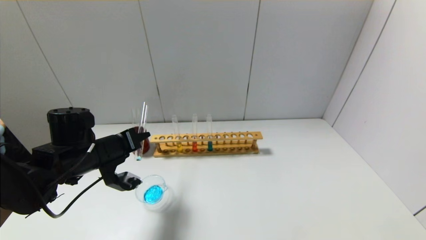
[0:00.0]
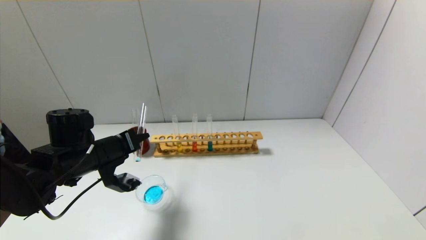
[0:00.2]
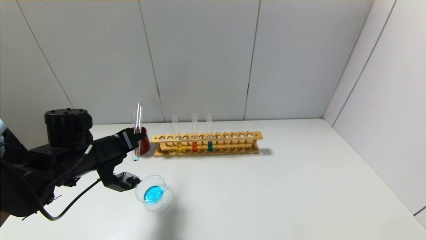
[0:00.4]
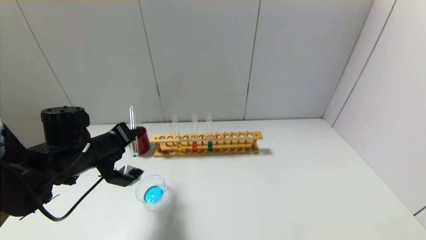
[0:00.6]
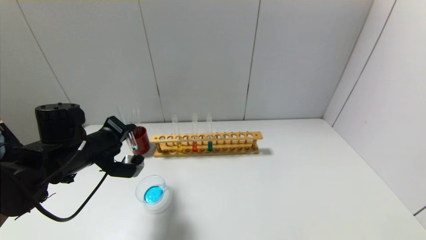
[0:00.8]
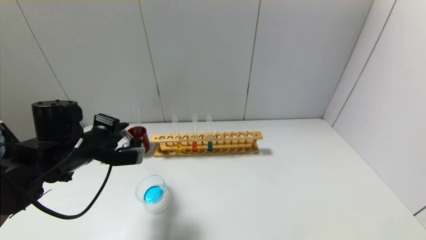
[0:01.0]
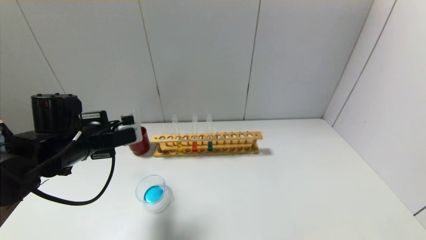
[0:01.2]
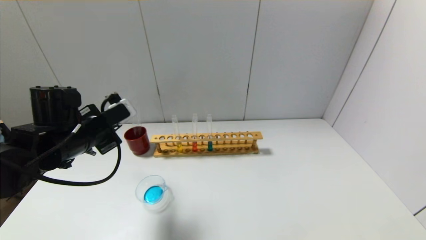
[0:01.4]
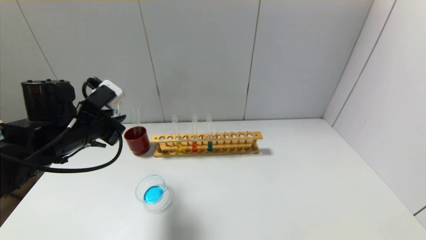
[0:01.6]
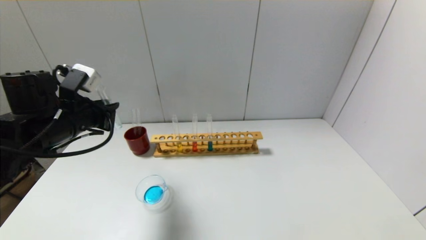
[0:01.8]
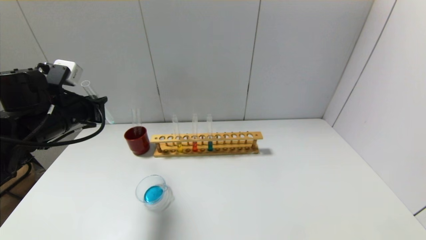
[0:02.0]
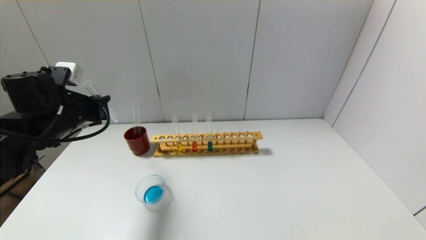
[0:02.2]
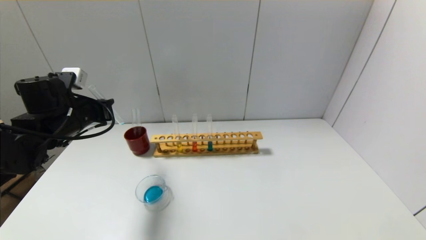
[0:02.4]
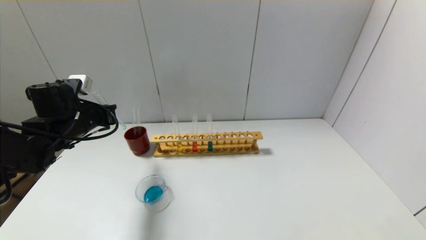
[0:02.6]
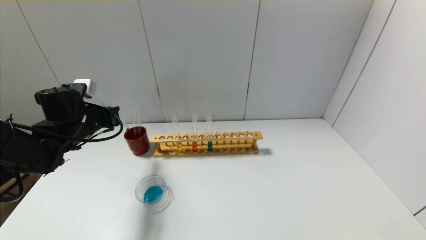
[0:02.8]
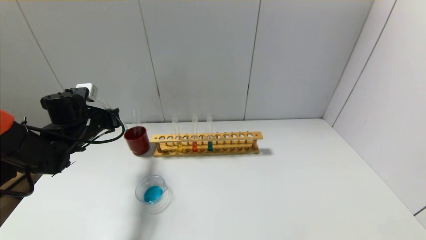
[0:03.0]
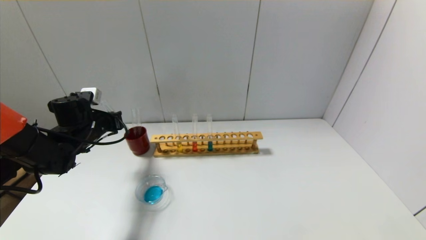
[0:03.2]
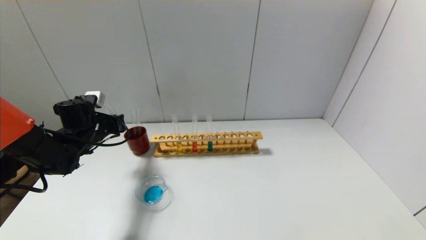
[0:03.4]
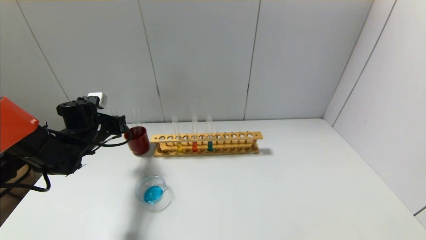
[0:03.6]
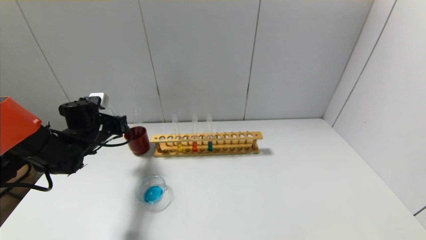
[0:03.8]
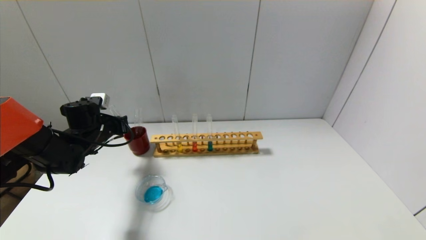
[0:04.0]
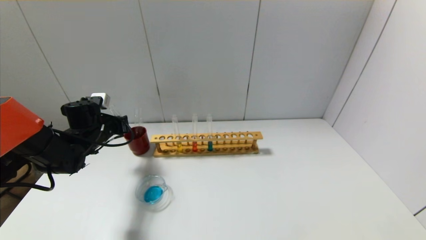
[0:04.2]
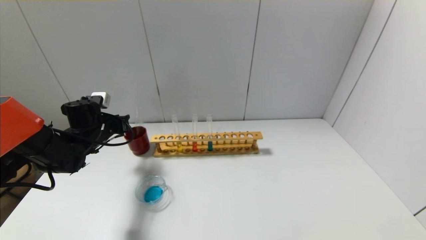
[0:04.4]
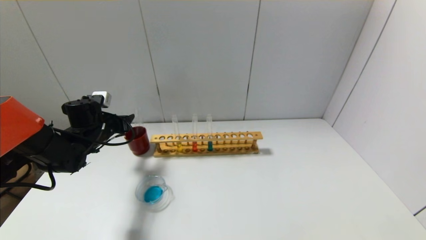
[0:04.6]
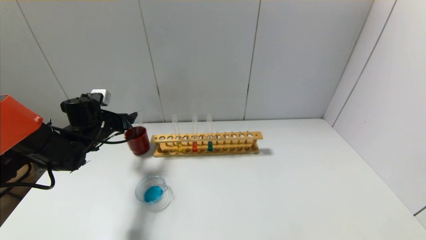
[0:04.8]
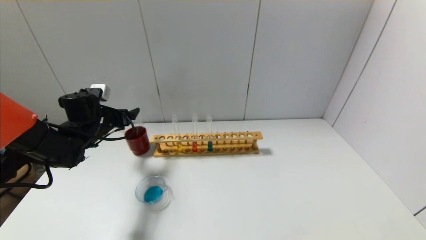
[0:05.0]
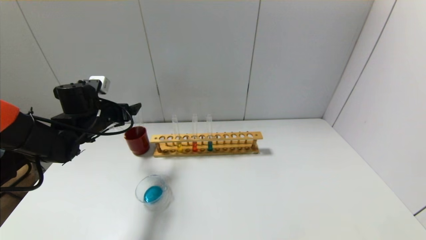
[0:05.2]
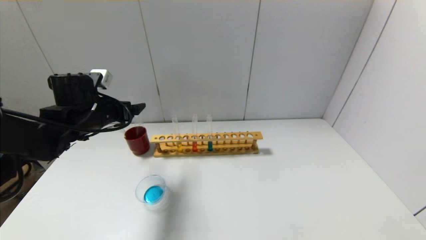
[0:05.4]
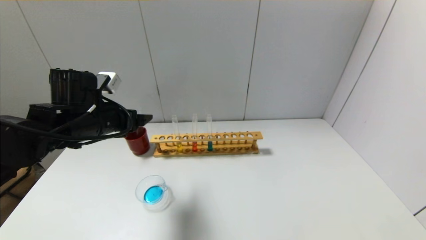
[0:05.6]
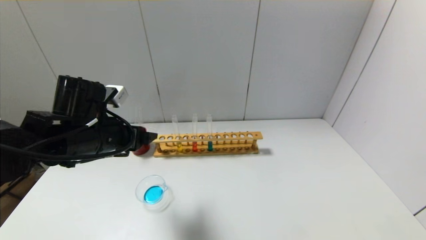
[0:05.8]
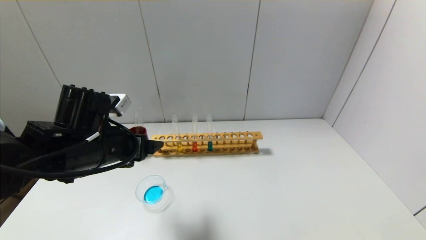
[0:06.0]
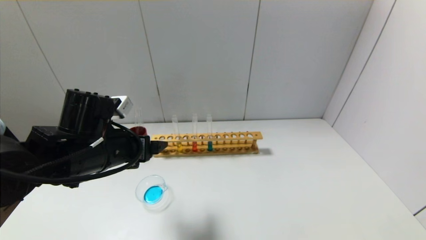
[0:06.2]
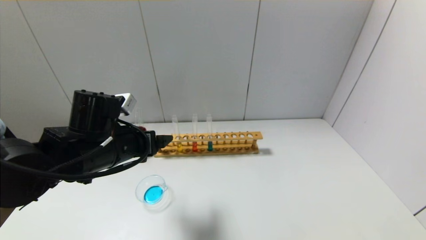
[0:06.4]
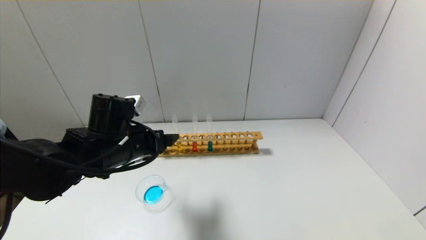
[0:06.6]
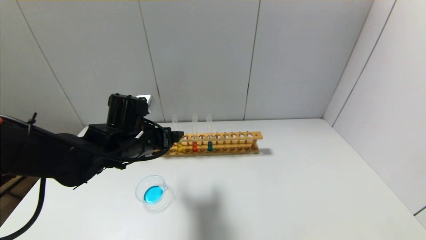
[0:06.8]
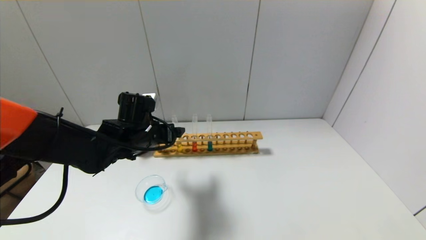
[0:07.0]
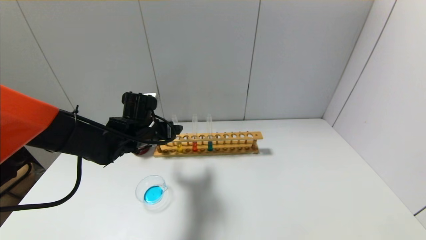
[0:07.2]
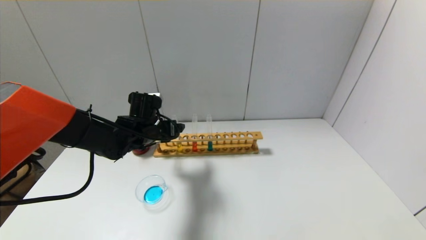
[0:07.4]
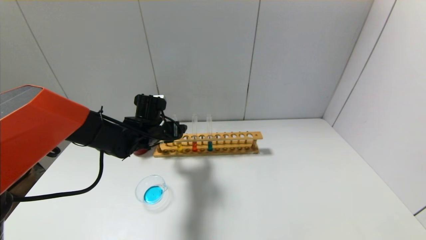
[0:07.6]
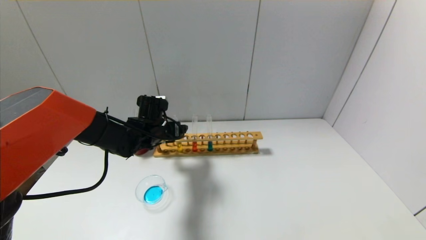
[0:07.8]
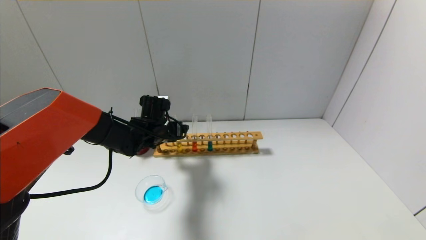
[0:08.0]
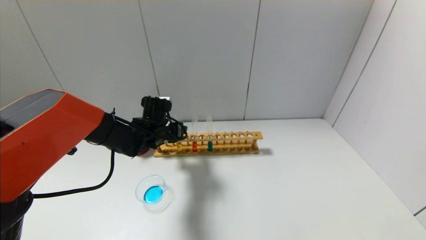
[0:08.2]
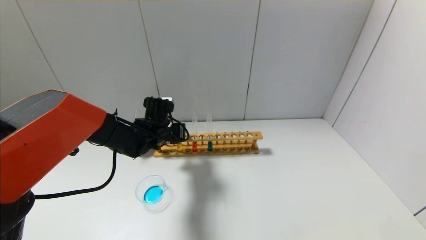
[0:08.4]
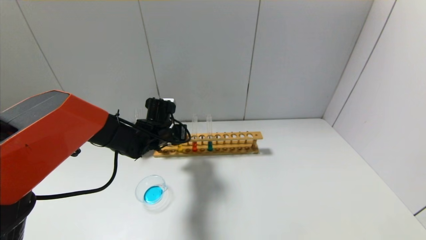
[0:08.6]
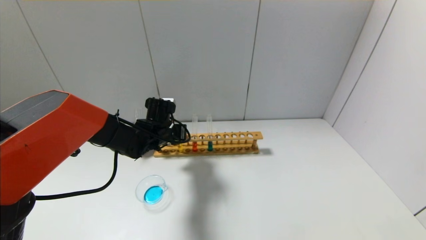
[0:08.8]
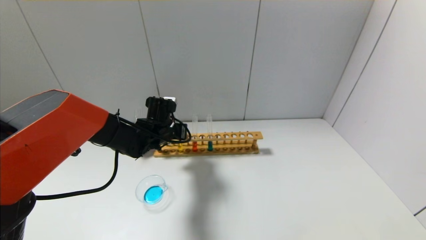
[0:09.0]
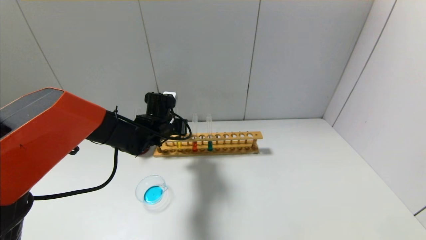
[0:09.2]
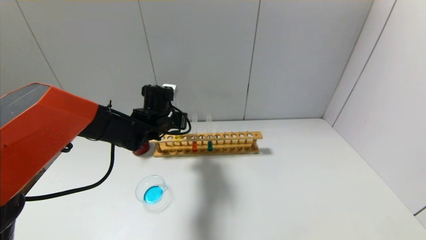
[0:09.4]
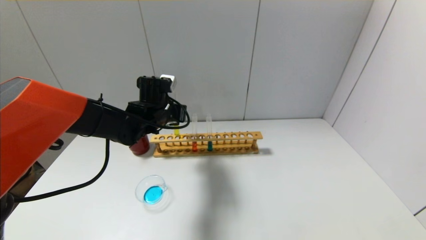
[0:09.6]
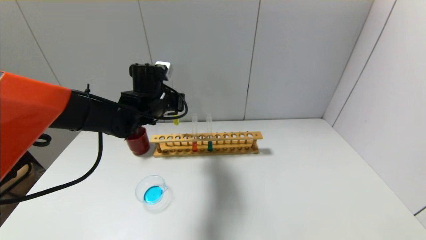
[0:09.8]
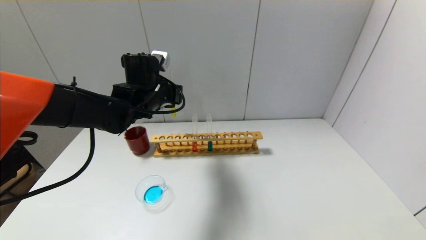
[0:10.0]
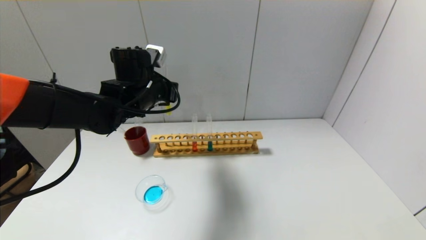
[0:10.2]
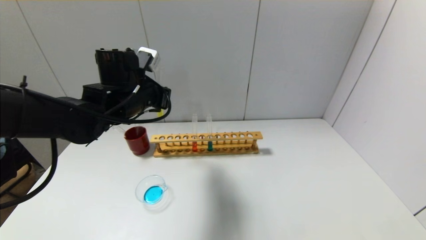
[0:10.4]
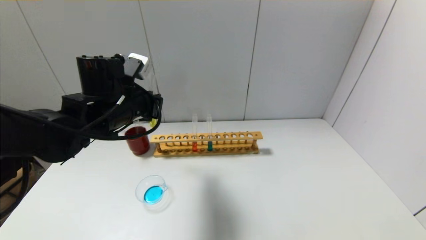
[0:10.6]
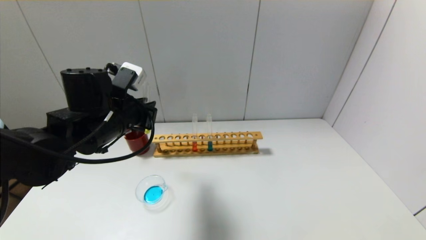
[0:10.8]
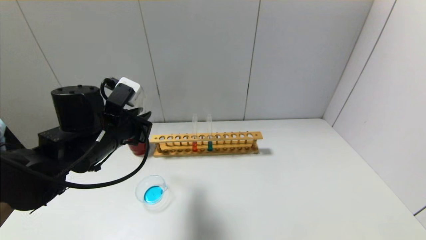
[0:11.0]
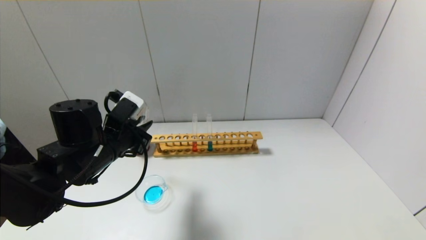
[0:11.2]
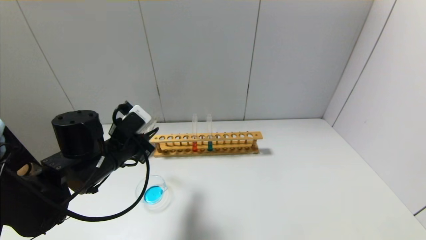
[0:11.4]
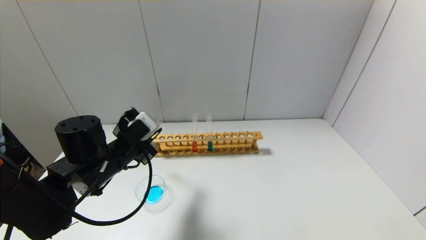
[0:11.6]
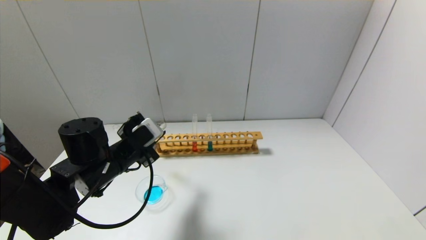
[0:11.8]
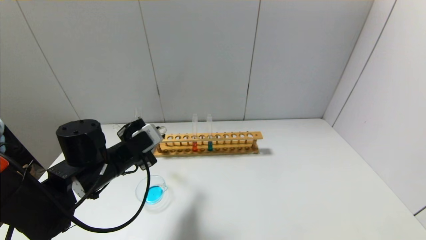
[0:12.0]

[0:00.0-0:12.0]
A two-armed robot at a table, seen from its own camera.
Step, 0:01.0 to 0:04.4: Place the test tube into the brown cup with the left gripper.
Step, 0:04.6 to 0:08.6: Grasp the yellow reagent with the left gripper.
0:00.0 to 0:01.6: The left gripper heads upward, covering about 5 cm.
0:01.6 to 0:03.0: The left gripper heads forward, downward and to the left, covering roughly 10 cm.
0:03.0 to 0:04.4: The grippers stay close to where they were, moving slightly.
0:04.4 to 0:06.0: The left gripper shifts some 20 cm backward, to the right and upward, and opens up.
0:06.0 to 0:07.6: The left gripper goes roughly 15 cm forward and downward.
0:07.6 to 0:09.0: The left gripper closes.
0:09.0 to 0:10.4: The left gripper is displaced upward and backward by roughly 15 cm.
0:10.4 to 0:12.0: The left gripper is displaced downward and backward by approximately 15 cm.

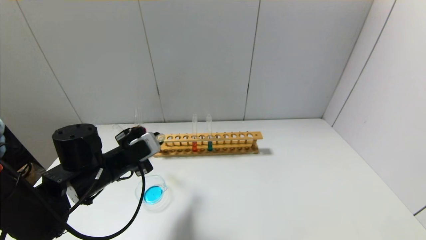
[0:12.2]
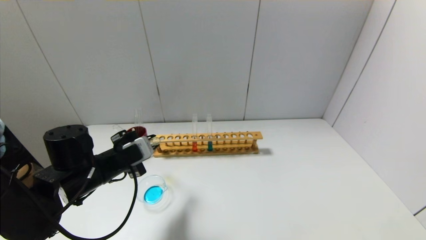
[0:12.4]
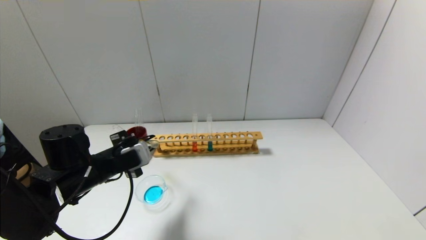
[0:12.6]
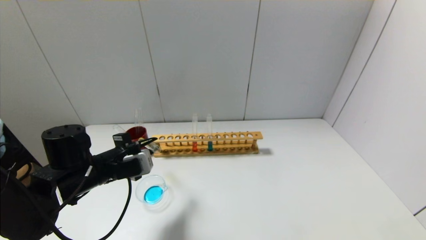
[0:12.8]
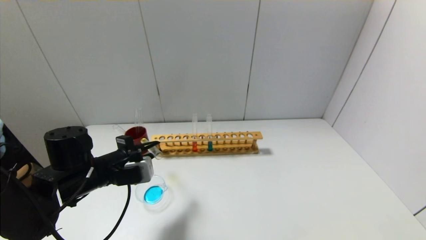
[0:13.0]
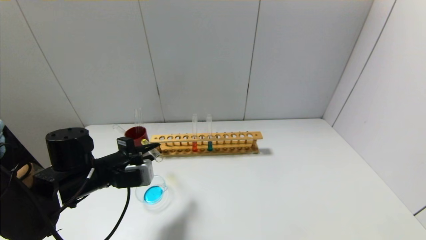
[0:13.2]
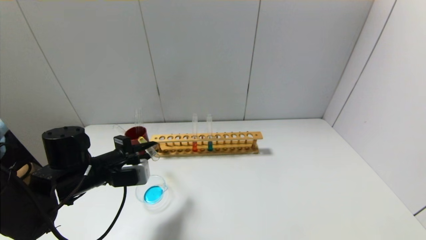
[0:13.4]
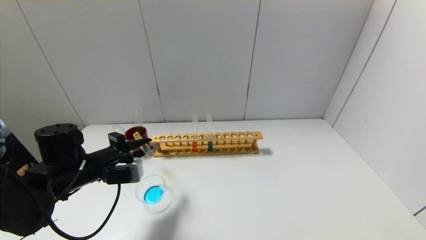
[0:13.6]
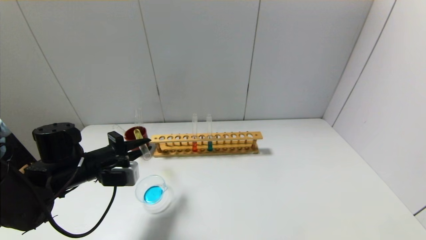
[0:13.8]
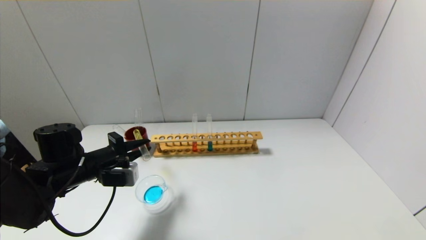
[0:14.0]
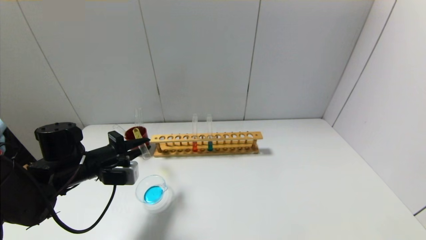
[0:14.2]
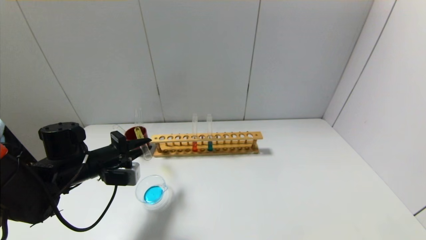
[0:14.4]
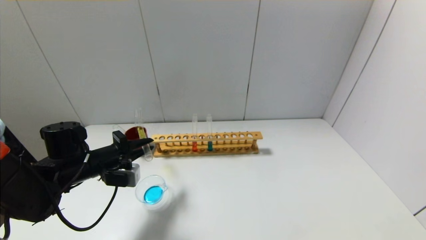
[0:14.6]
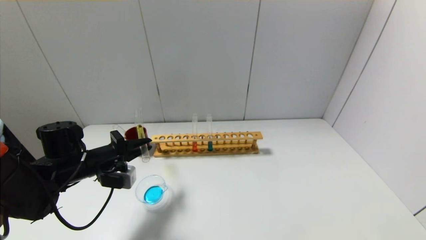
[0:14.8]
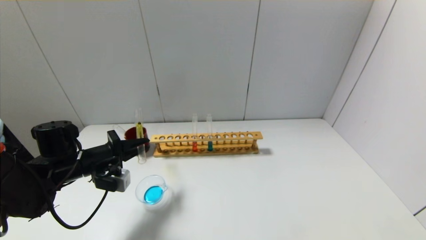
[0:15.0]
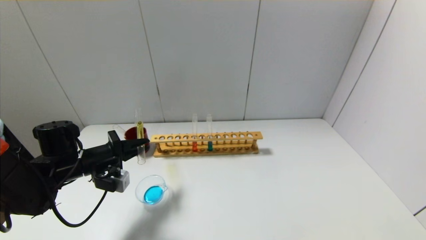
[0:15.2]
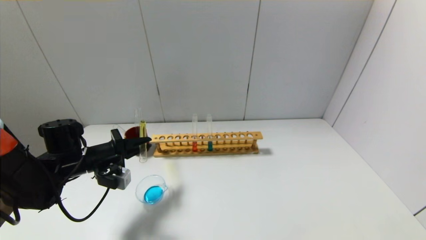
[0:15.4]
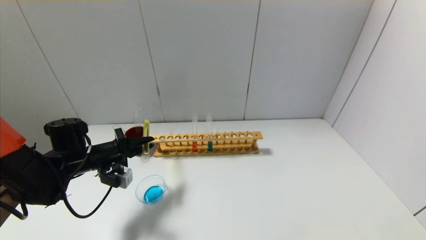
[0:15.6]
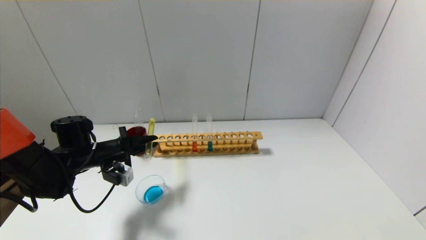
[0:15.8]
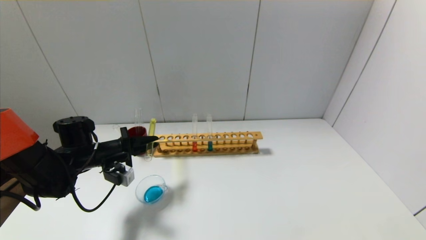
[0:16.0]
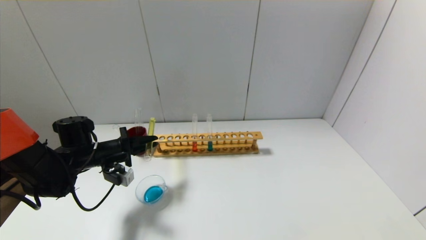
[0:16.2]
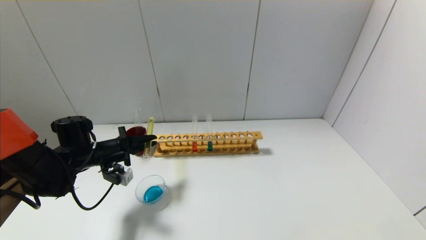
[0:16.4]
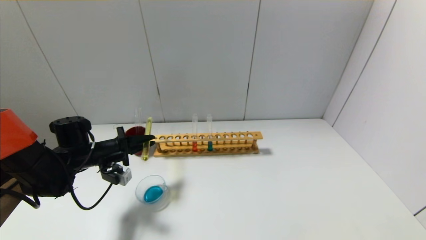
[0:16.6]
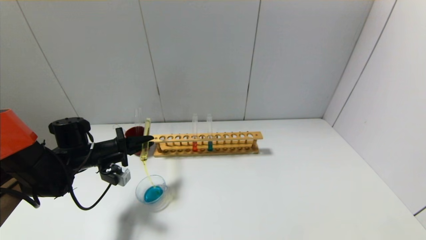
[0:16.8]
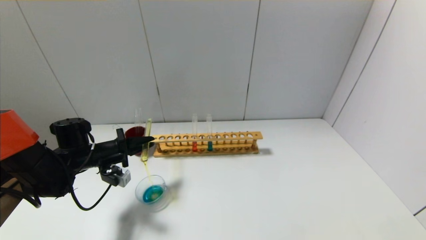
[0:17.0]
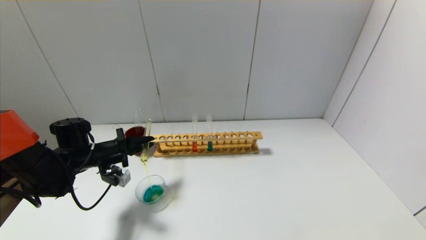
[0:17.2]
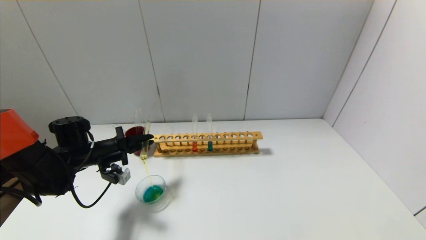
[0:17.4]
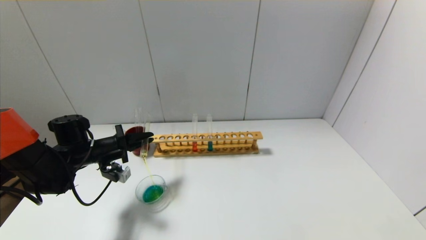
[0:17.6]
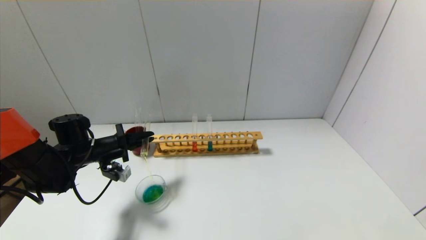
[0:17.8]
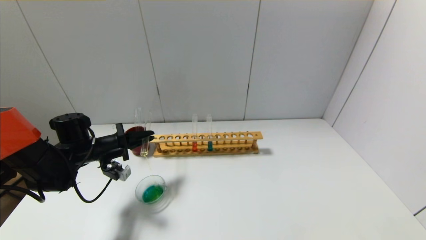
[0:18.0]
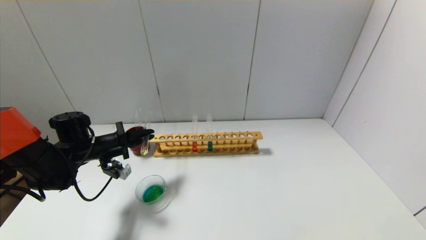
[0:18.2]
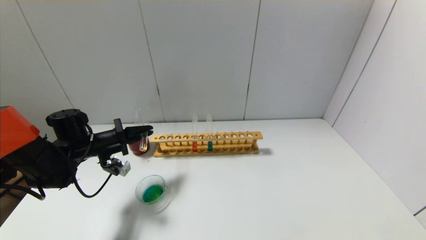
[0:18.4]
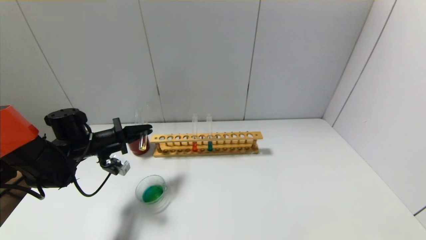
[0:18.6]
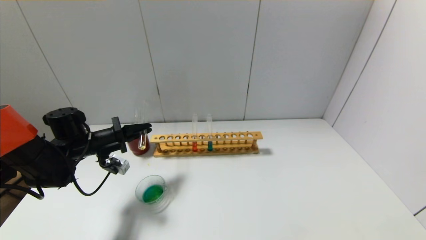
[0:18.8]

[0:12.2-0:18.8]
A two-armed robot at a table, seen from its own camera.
0:12.2 to 0:13.8: The left gripper travels to the left by roughly 5 cm.
0:13.8 to 0:15.4: There are only small adjustments of the grippers.
0:15.4 to 0:18.8: The grippers make only small movements.
